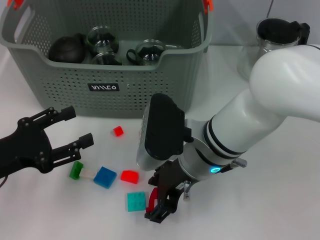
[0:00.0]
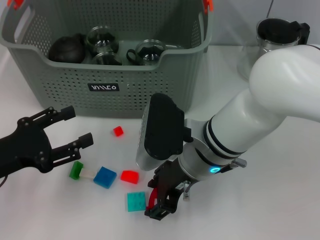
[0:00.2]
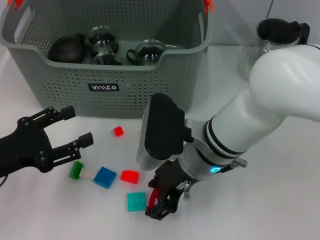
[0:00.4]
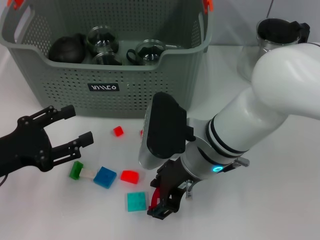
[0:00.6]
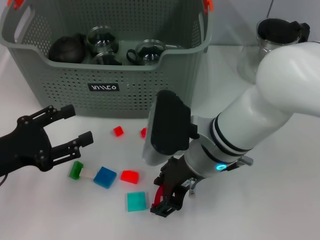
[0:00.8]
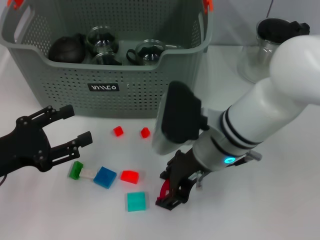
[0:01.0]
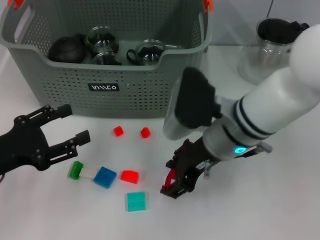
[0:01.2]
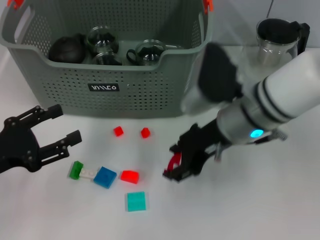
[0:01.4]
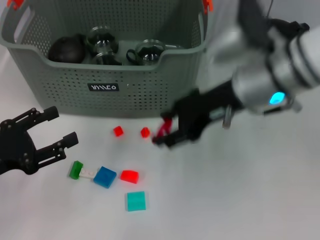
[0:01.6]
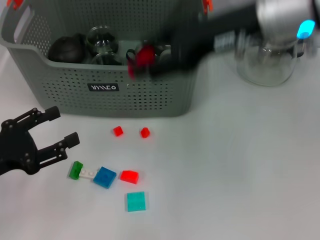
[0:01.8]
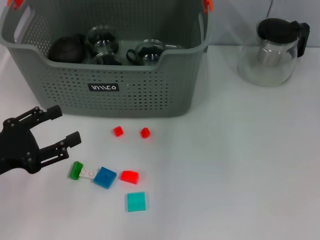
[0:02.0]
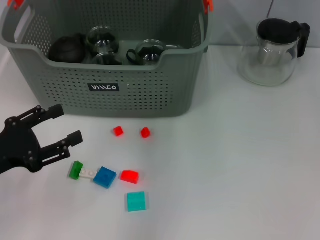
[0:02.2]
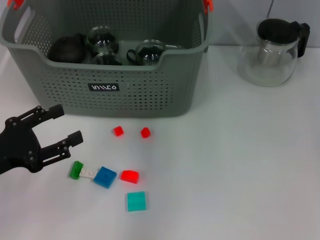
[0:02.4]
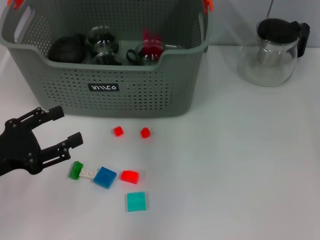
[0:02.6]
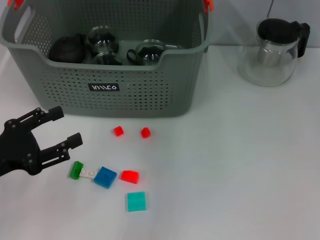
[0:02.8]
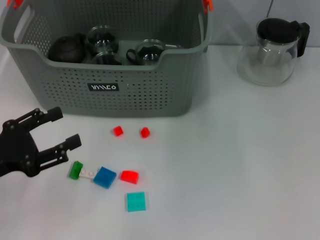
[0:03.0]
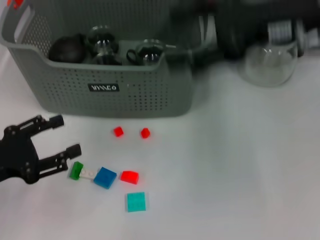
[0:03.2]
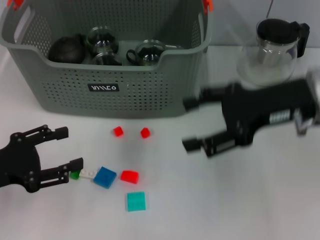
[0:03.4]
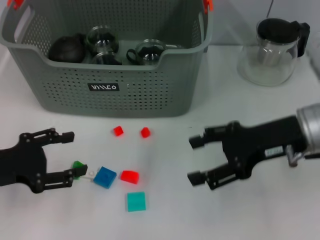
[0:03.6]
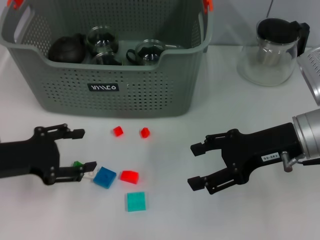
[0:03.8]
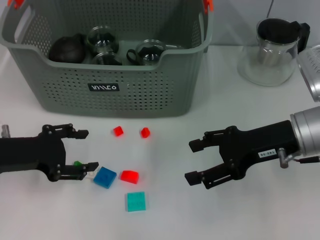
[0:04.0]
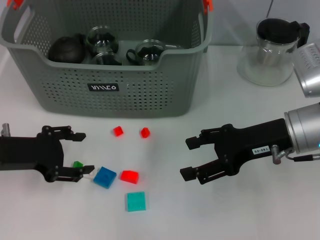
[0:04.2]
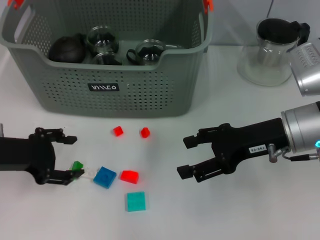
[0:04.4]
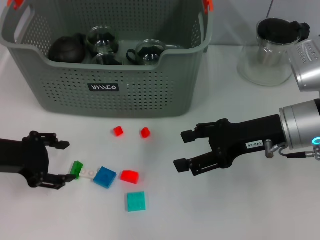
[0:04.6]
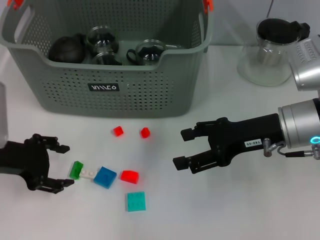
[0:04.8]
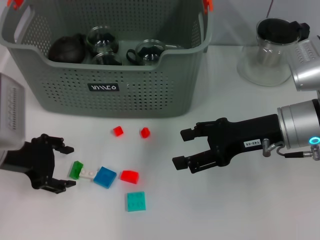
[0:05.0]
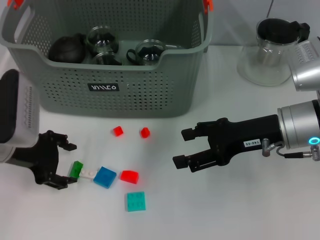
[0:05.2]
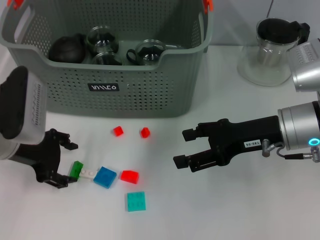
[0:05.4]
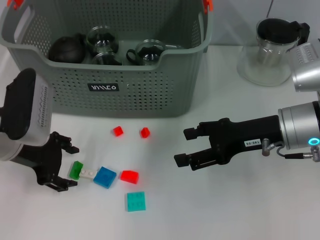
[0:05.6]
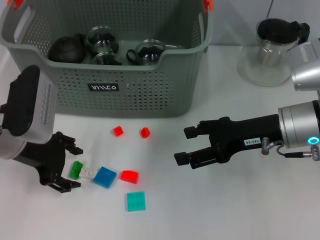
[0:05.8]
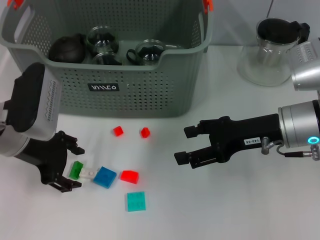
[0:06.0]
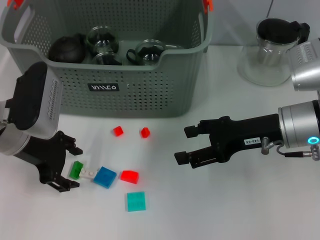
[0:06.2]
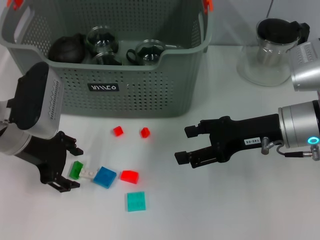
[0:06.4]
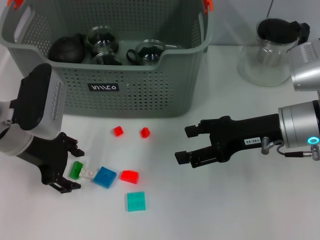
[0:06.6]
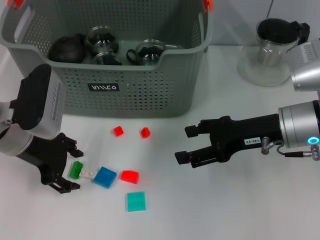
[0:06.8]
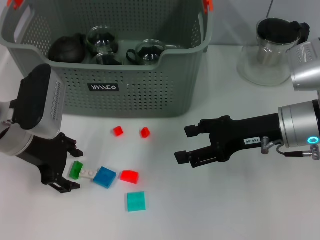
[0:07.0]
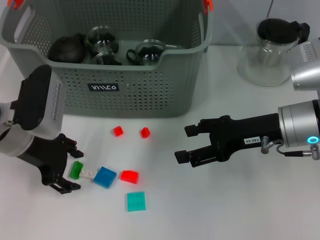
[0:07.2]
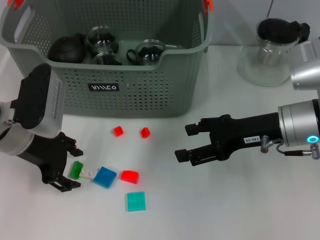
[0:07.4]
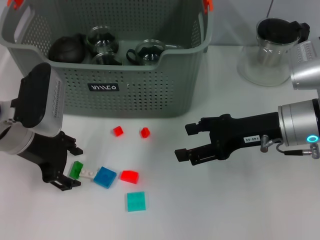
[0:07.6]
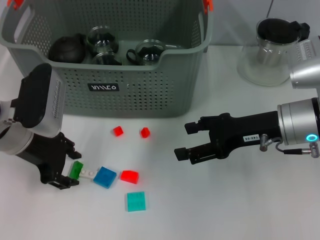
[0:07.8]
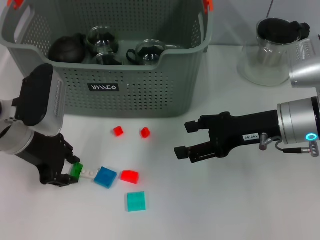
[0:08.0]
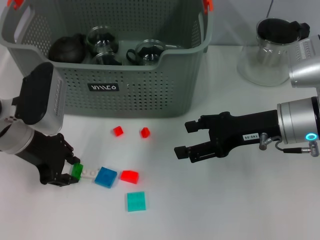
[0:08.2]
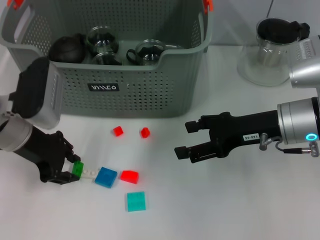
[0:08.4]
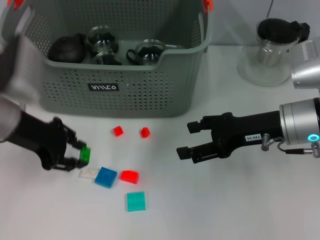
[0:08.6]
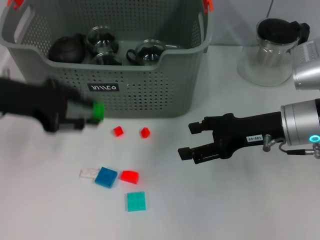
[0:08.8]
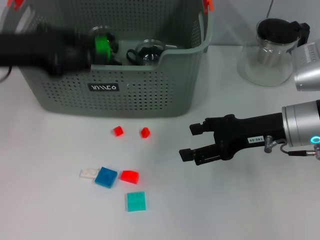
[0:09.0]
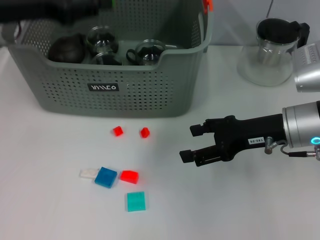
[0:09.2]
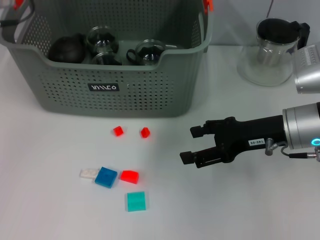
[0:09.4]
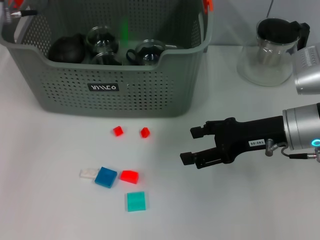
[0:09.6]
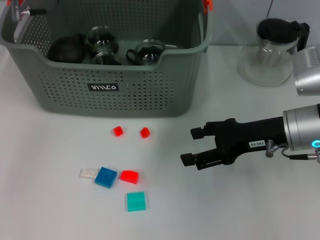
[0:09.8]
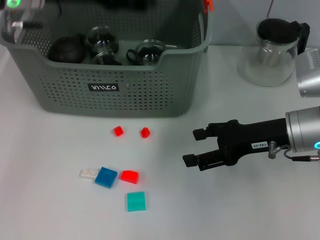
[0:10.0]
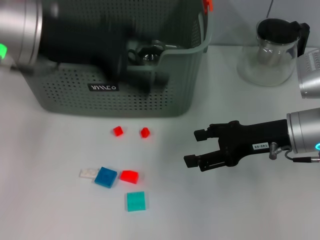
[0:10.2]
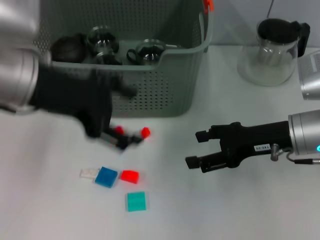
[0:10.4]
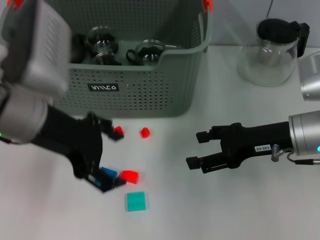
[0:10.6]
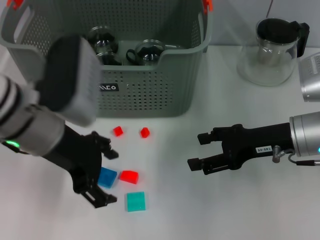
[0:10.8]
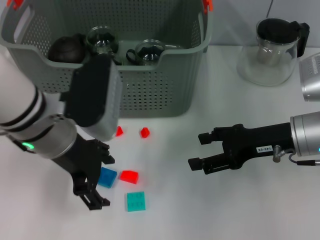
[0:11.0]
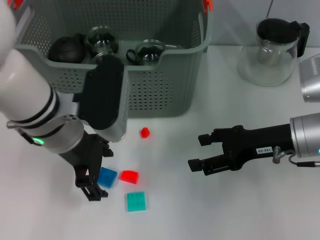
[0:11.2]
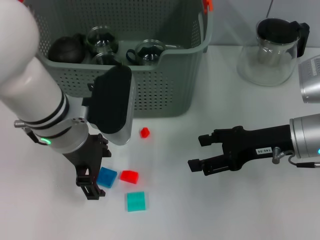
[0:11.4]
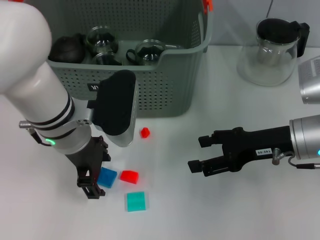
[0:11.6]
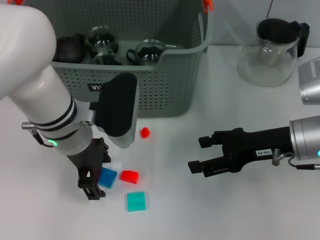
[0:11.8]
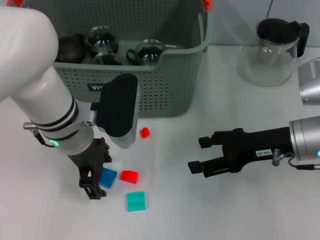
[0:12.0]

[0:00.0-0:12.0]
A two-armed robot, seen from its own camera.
Task of the whole recording: pick up the teacup on the table and place it into the storage bin, pick up the block on the table and place it into the storage bin.
Step, 0:00.4 to 0:02.6: Place the red block in the storage box with right gripper.
Step, 0:03.0 to 0:08.2: Grasp the green block with left gripper.
Step, 0:08.4 to 0:09.8: Place the green block in the storage box with left gripper.
0:00.0 to 0:01.6: The right gripper heads upward and to the right, covering some 10 cm.
0:01.6 to 0:03.0: The right gripper travels upward and forward by approximately 15 cm.
0:03.0 to 0:04.4: The left gripper goes roughly 5 cm forward, while the right gripper heads downward, covering about 20 cm.
0:04.4 to 0:06.0: The left gripper moves to the right, approximately 5 cm.
0:06.0 to 0:07.6: The grippers stay close to where they were, moving slightly.
0:07.6 to 0:09.0: The left gripper travels upward by some 10 cm, and closes.
0:09.0 to 0:10.4: The left gripper shifts approximately 10 cm to the right, goes forward and returns, roughly 10 cm each way, and opens its fingers.
0:10.4 to 0:12.0: The left gripper shifts some 10 cm downward and to the right.

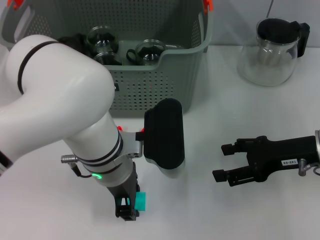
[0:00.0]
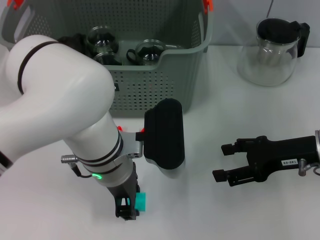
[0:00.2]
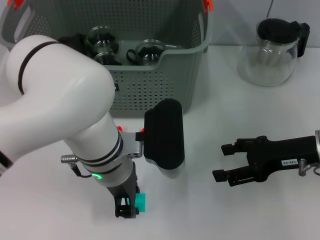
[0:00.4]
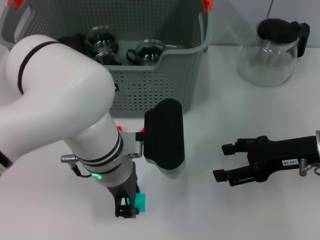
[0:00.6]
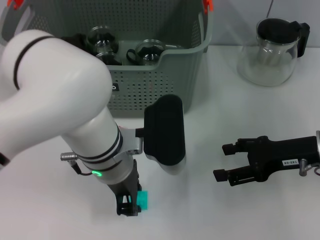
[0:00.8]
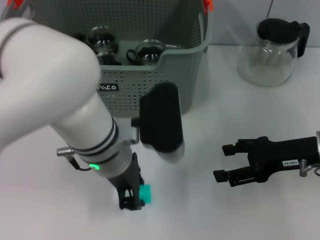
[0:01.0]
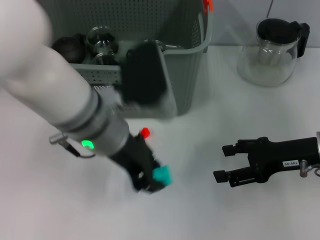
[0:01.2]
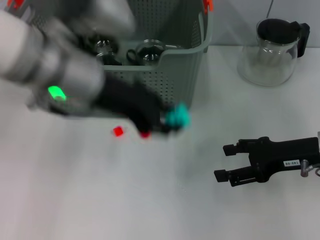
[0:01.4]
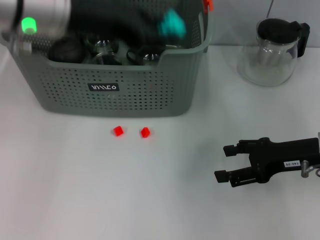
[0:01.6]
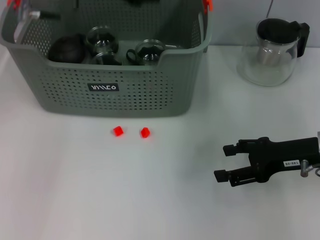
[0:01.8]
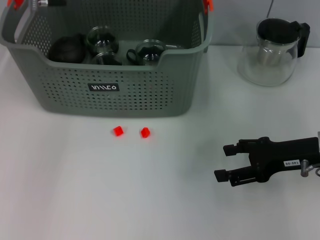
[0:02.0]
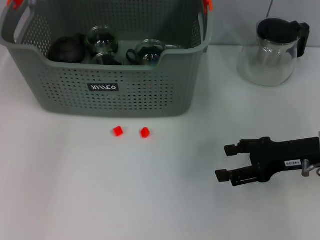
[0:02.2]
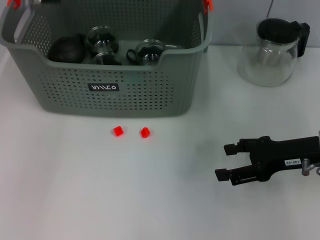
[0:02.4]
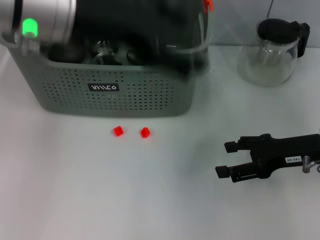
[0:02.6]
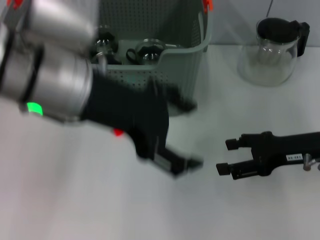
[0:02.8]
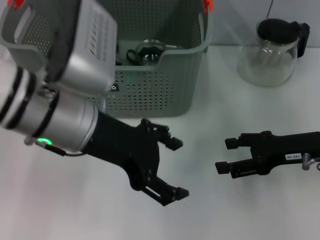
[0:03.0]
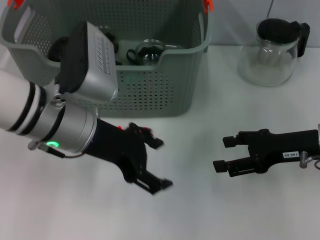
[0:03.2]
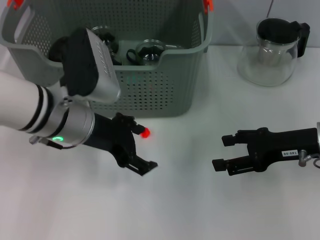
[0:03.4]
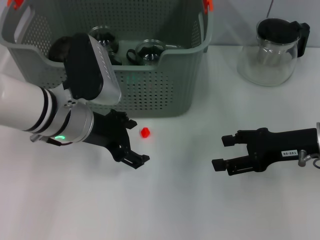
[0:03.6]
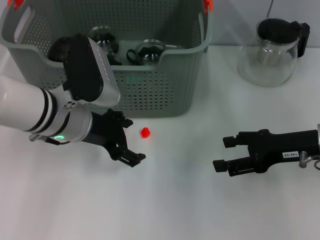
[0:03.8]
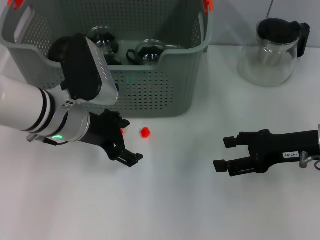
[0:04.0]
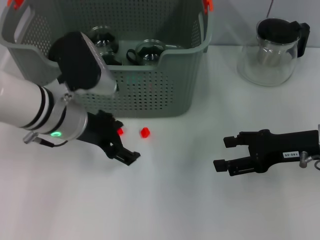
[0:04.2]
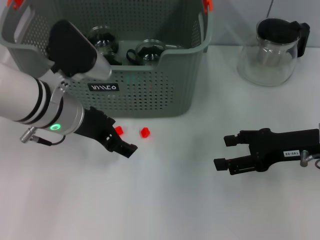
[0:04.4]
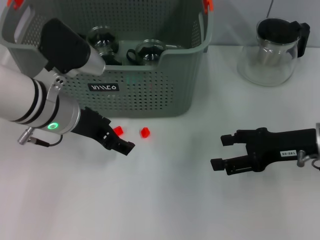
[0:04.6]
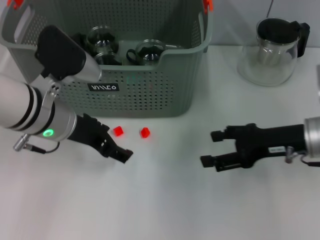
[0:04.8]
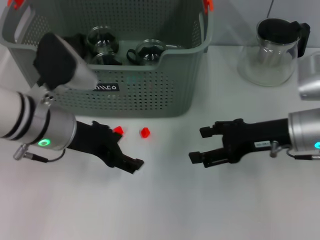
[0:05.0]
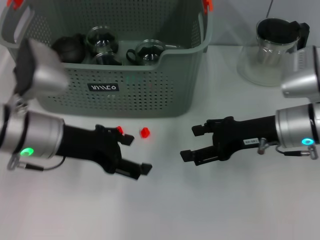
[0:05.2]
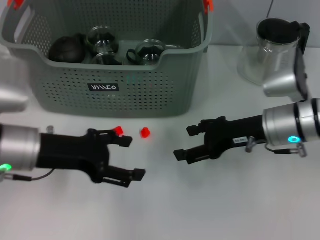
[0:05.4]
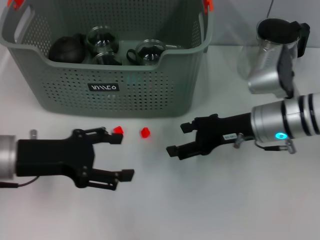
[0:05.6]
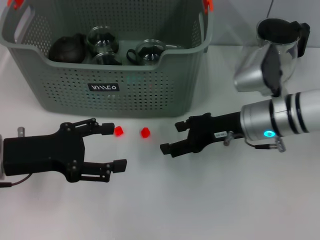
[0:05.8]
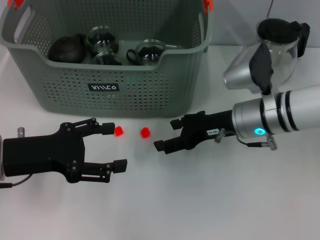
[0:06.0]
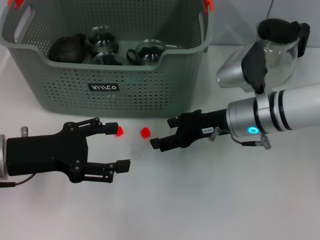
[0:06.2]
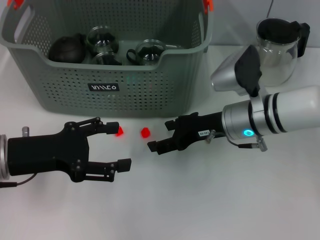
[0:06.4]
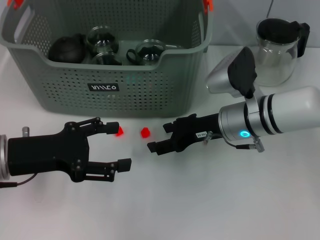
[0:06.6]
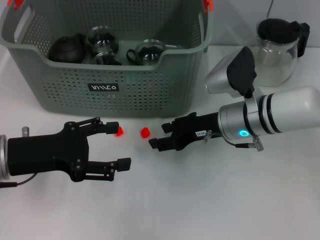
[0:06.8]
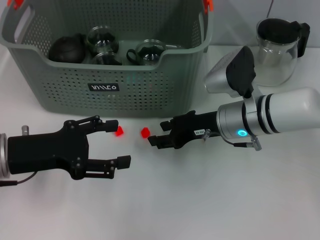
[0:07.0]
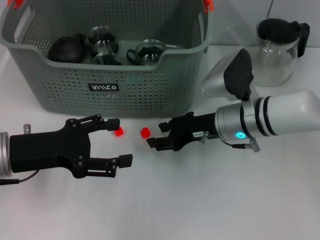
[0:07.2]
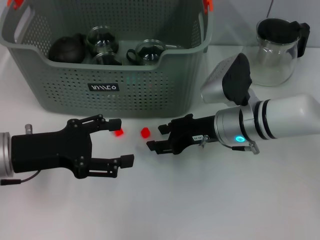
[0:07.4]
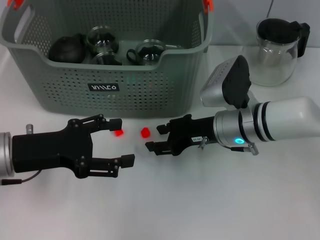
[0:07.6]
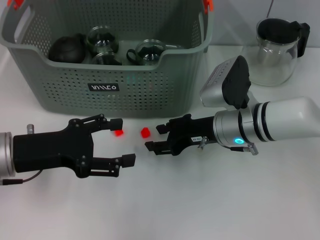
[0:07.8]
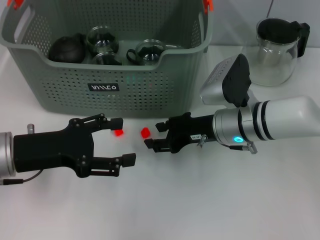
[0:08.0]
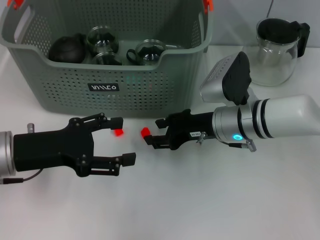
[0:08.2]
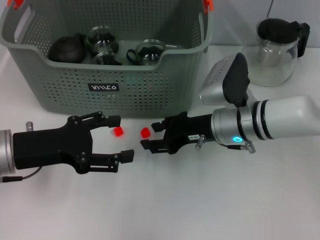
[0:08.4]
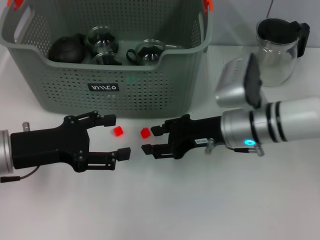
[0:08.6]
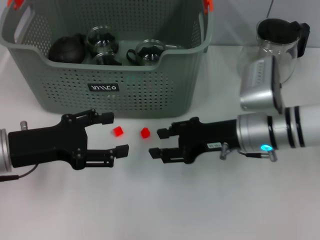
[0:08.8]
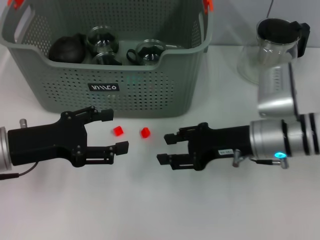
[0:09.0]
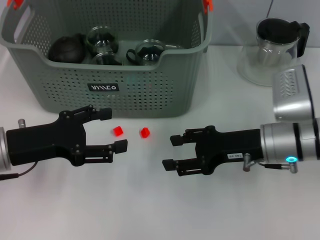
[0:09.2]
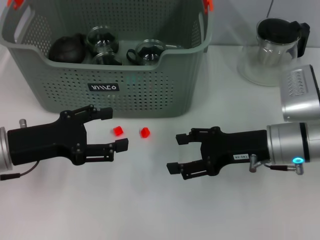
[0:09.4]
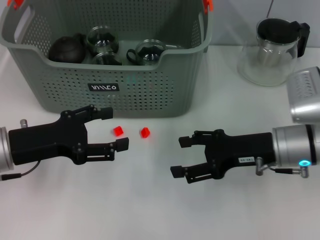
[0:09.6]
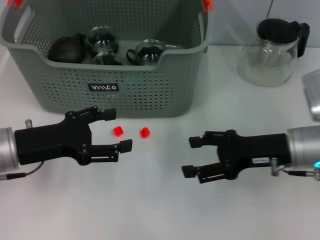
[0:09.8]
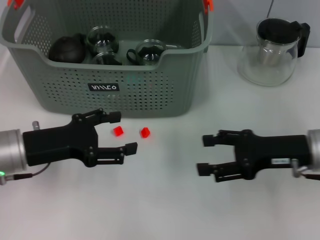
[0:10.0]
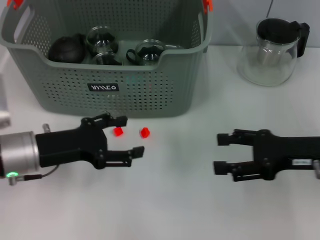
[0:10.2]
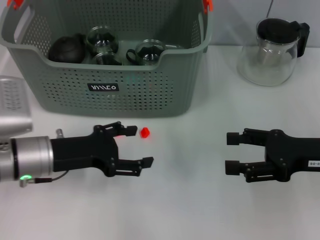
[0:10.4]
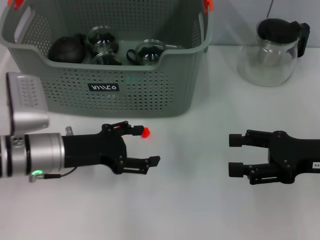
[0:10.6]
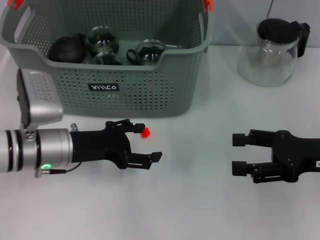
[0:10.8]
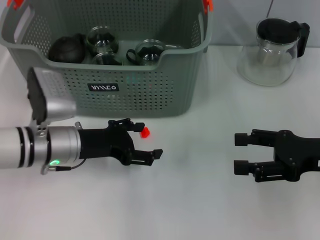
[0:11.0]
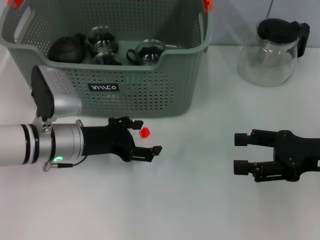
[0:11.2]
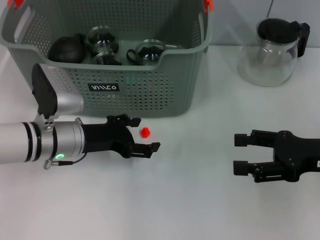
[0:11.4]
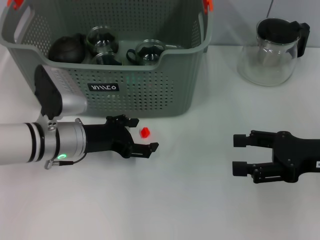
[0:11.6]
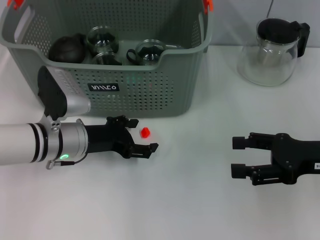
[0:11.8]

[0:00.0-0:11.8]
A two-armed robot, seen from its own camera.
Task of the whole recording: pick up the teacup on the table and place it into the storage bin, pick up the block on the table and place it into the storage bin.
Step, 0:00.8 to 0:02.4: Place the light blue block in the storage box with left gripper.
0:00.0 to 0:01.4: The left gripper travels upward and to the left by about 15 cm.
0:01.4 to 0:03.0: The left gripper reaches roughly 10 cm forward, then returns, and opens up.
0:03.0 to 0:04.4: The left gripper moves downward and forward, about 10 cm.
0:04.4 to 0:06.0: The left gripper travels to the left and backward by some 10 cm. The right gripper is displaced to the left by some 10 cm.
0:06.0 to 0:07.4: The right gripper closes.
0:07.4 to 0:08.8: The grippers stay close to where they were, moving slightly.
0:08.8 to 0:10.4: The right gripper goes approximately 15 cm to the right and backward, and opens up; the left gripper ends up about 5 cm from where it was.
0:10.4 to 0:11.8: The left gripper ends up approximately 5 cm from where it was.
